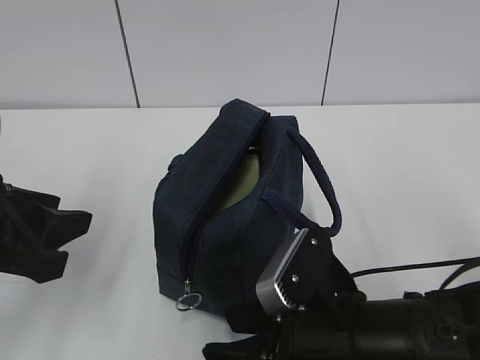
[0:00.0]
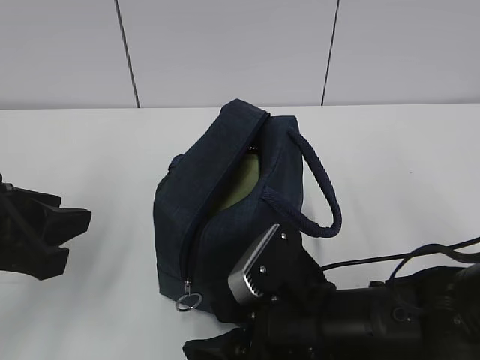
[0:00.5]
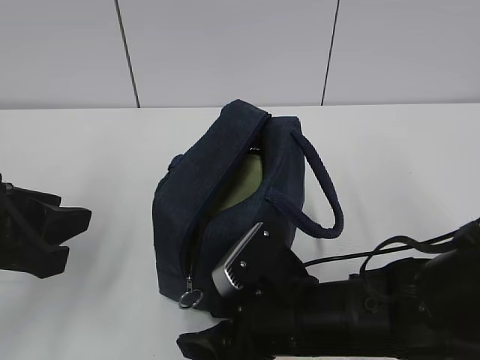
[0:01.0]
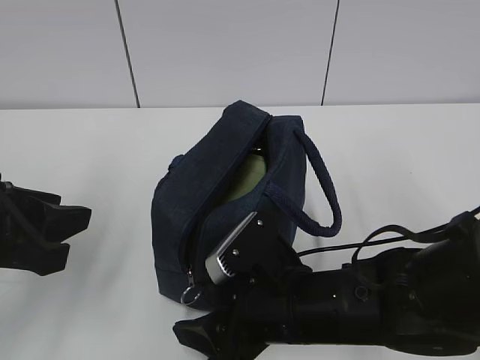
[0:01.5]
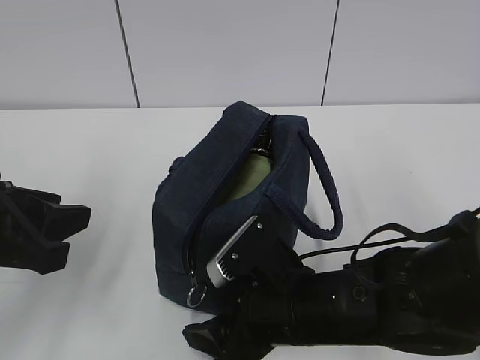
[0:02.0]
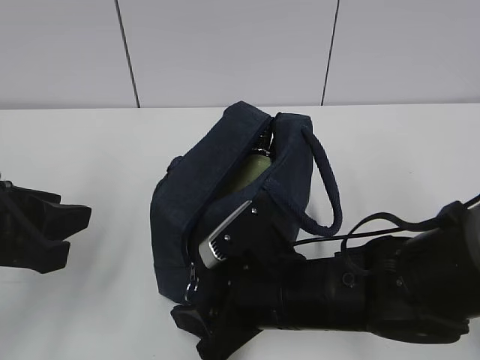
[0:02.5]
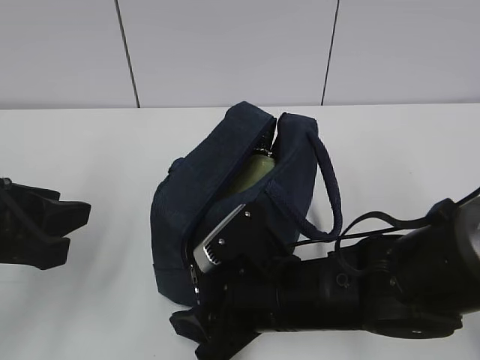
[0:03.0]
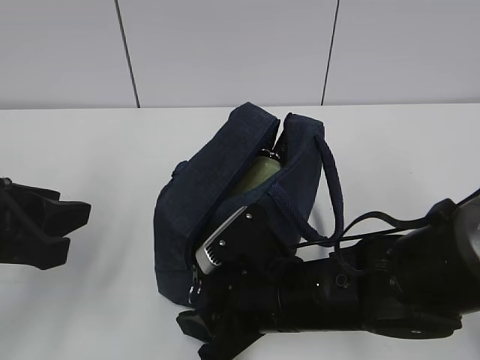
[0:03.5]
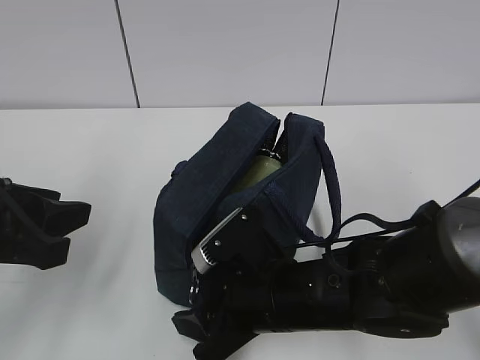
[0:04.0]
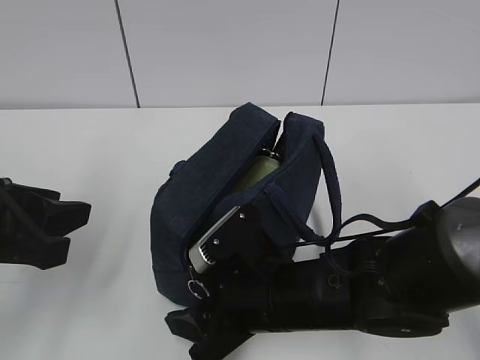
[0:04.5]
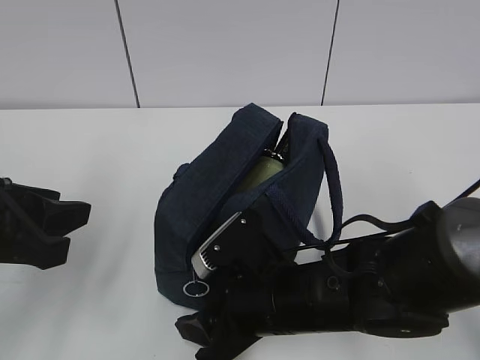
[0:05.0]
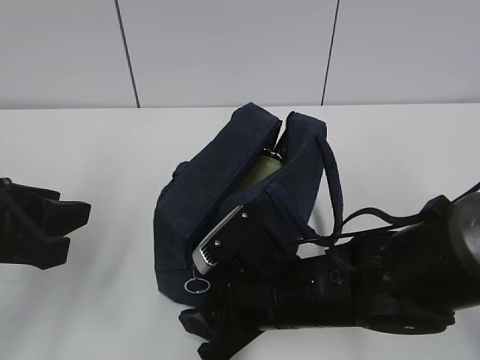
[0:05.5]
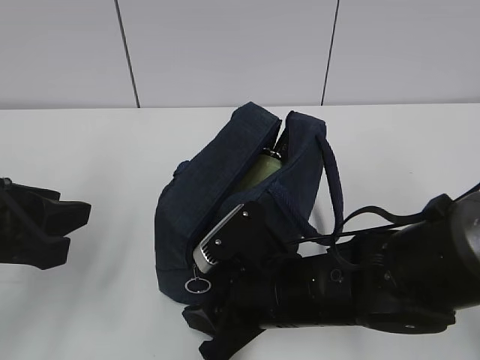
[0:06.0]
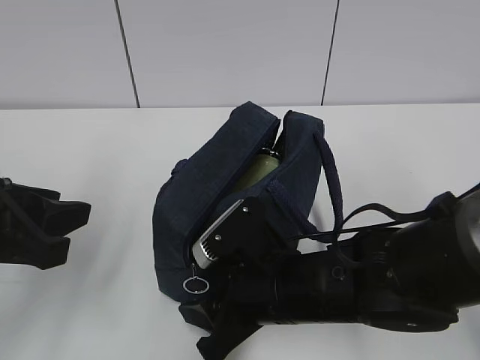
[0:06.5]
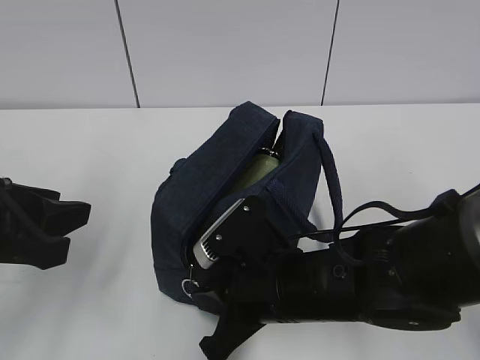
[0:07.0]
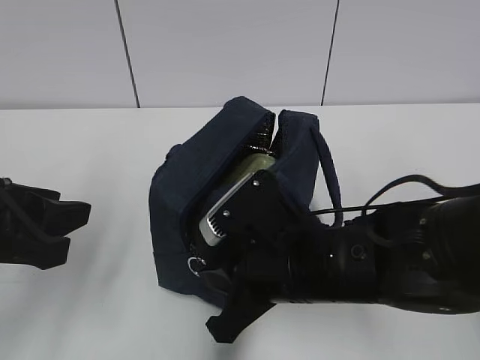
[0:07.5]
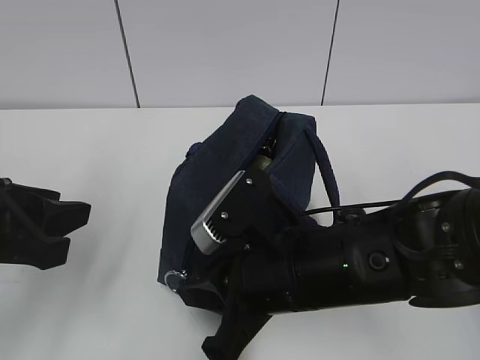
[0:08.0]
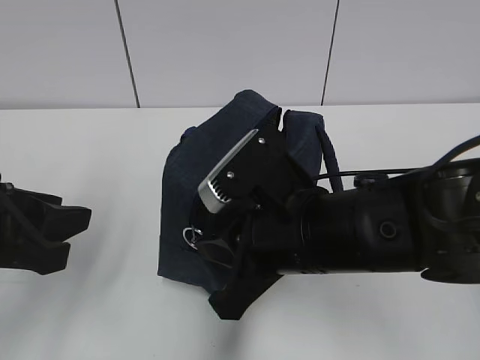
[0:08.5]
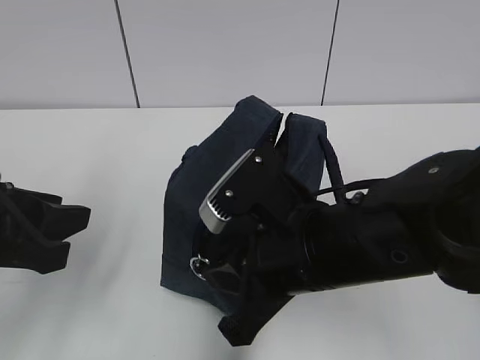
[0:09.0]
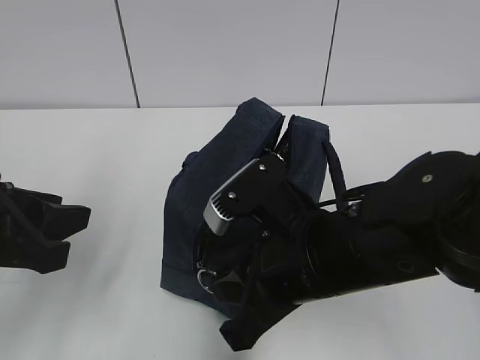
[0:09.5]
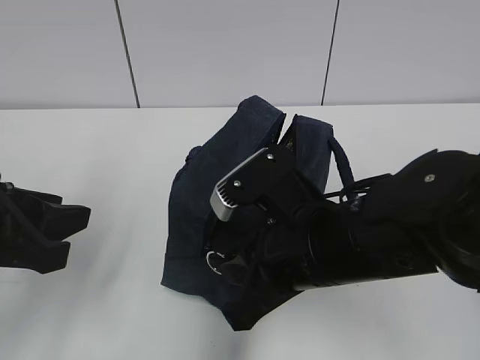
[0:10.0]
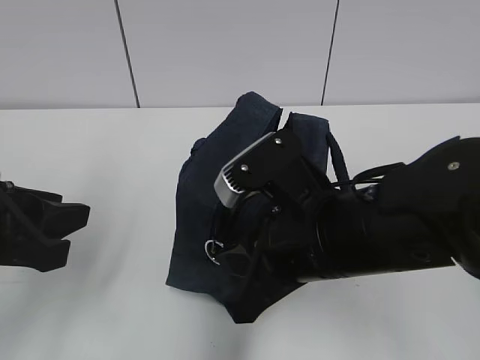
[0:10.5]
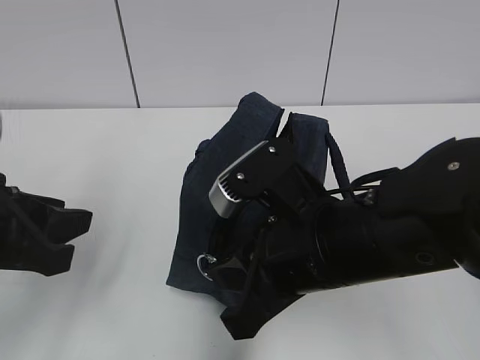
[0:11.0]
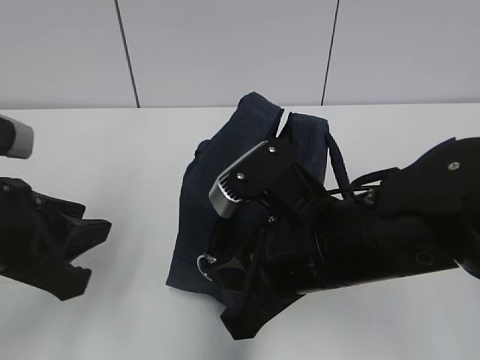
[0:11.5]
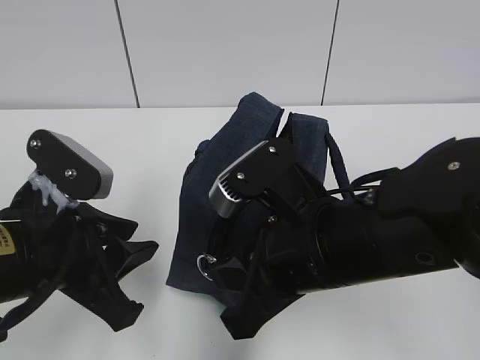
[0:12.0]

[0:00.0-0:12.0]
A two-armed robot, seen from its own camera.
0:00.0 to 0:02.0: The right gripper ends up some 5 cm from where it was.
0:02.0 to 0:04.0: The grippers make only small movements.
0:04.0 to 0:06.0: Both grippers stay about where they are.
0:06.0 to 0:08.0: The right gripper is displaced upward by about 5 cm, and closes its fingers.
0:08.0 to 0:10.0: The grippers stay close to where they were, moving slightly.
0:10.0 to 0:12.0: The left gripper moves to the right, some 5 cm.

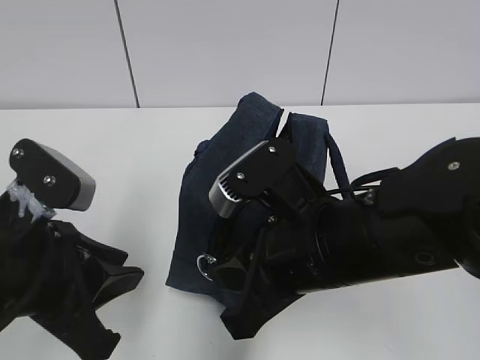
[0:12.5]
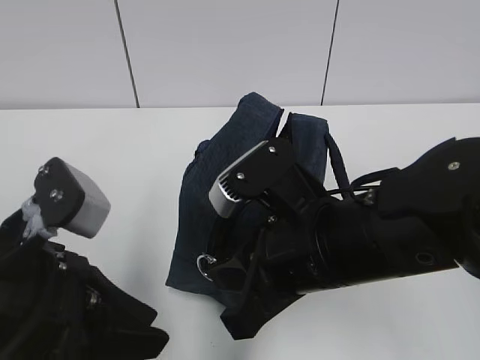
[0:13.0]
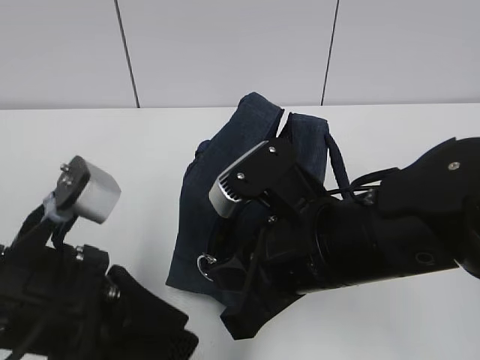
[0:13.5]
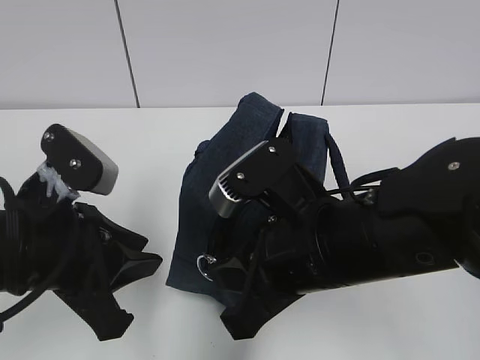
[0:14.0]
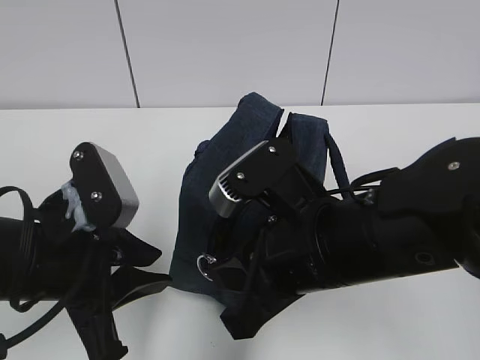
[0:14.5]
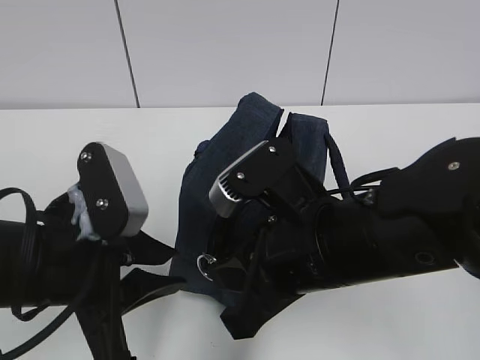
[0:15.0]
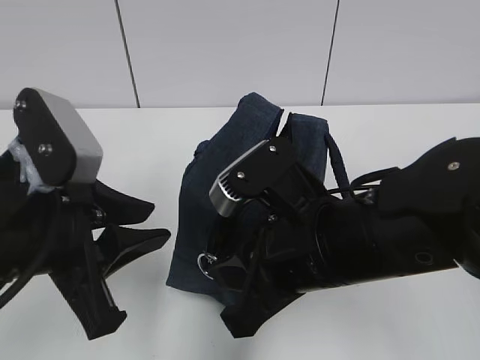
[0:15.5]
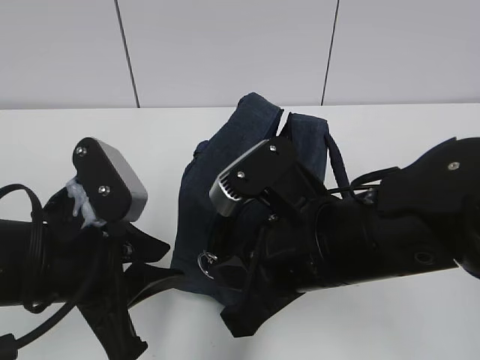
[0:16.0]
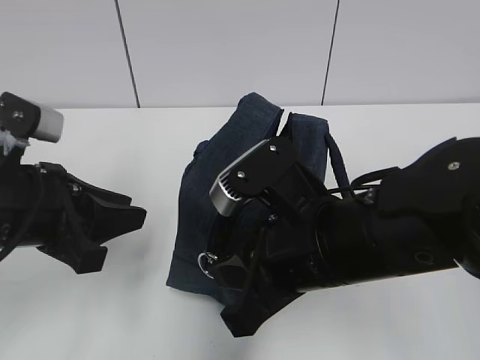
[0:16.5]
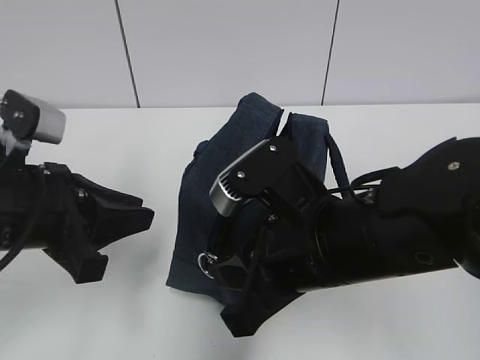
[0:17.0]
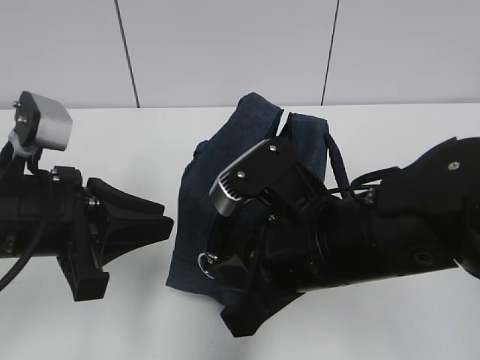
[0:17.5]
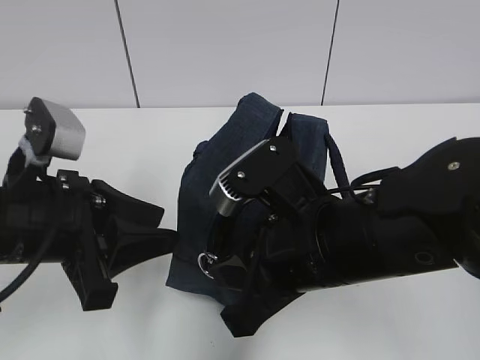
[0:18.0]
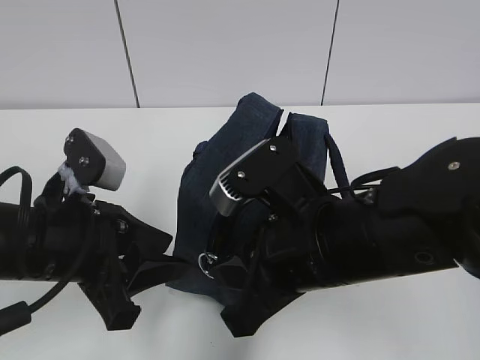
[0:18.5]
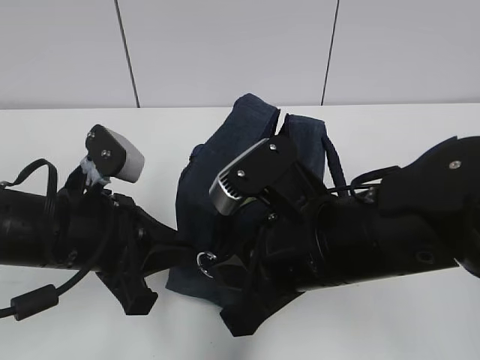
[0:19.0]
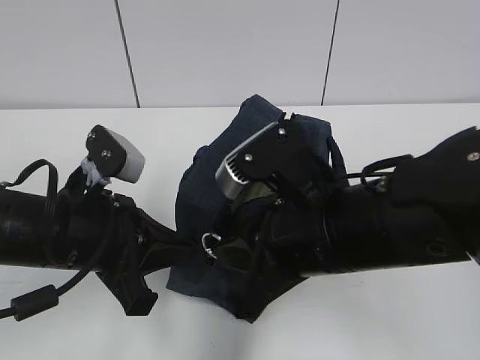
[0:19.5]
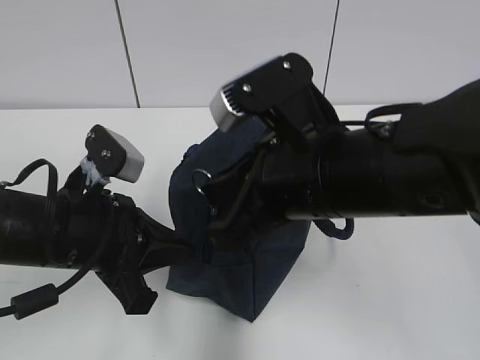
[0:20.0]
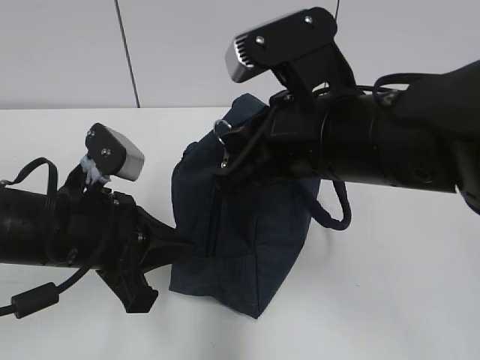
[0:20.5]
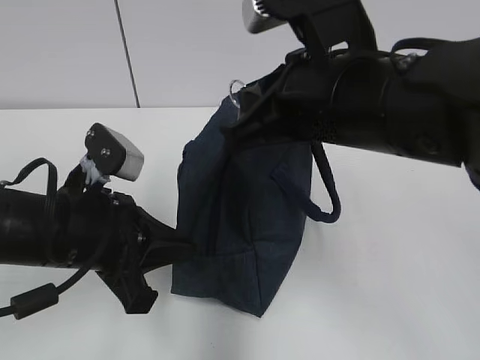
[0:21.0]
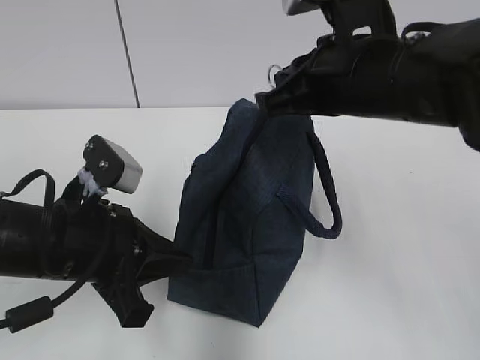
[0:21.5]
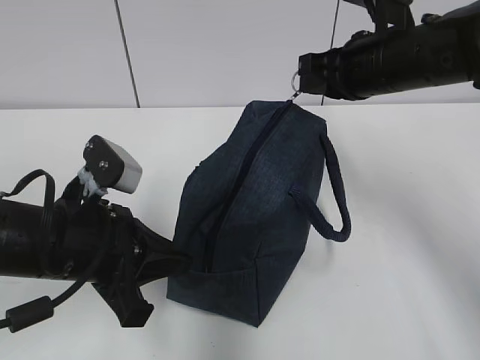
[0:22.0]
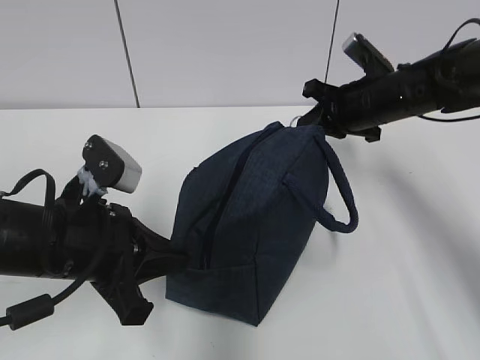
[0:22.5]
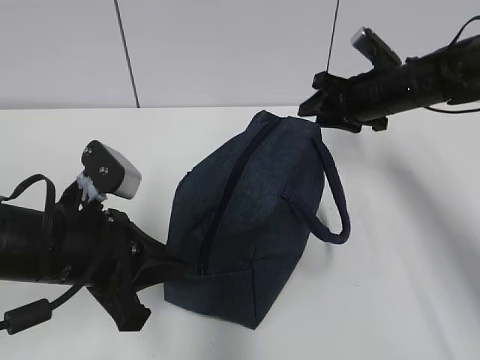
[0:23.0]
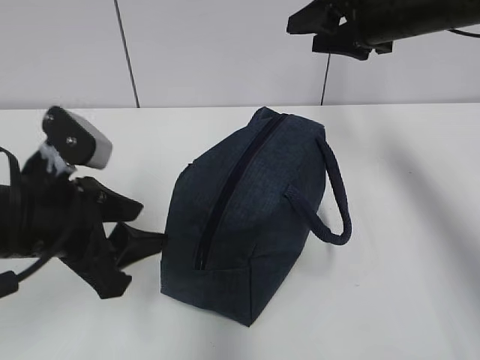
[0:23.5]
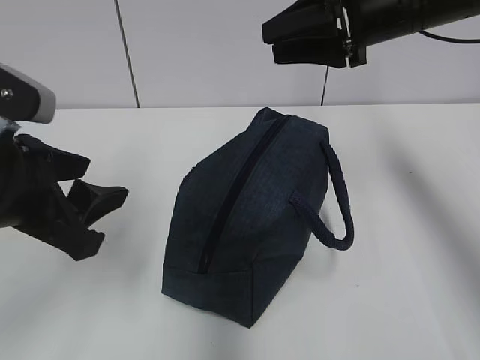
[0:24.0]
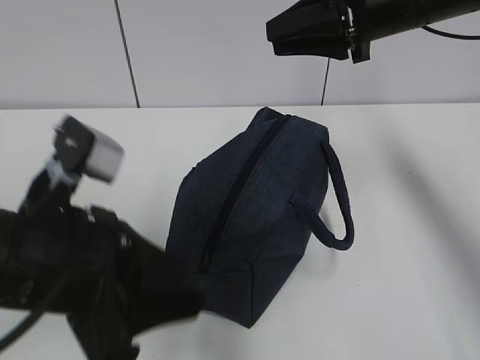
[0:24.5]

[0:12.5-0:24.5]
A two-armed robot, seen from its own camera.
Step, 0:12.5 to 0:18.5: Grab the lunch bag with your left hand.
Step, 0:19.0 to 0:22.5: Pull the zipper with your right hand.
0:14.5 to 0:16.5: The left gripper shifts by roughly 5 cm.
0:16.5 to 0:18.5: The grippers make only small movements.
0:18.5 to 0:20.5: The right gripper goes roughly 5 cm upward. Meanwhile the left gripper closes its fingers.
0:20.5 to 0:22.5: The right gripper travels forward, to the right and downward by about 25 cm.
0:22.5 to 0:24.5: The left gripper goes some 5 cm backward, and opens up, while the right gripper goes approximately 15 cm upward, and opens its fingers.

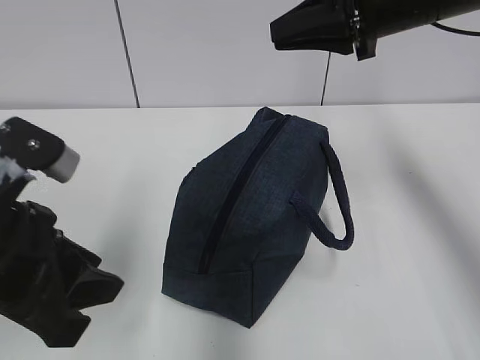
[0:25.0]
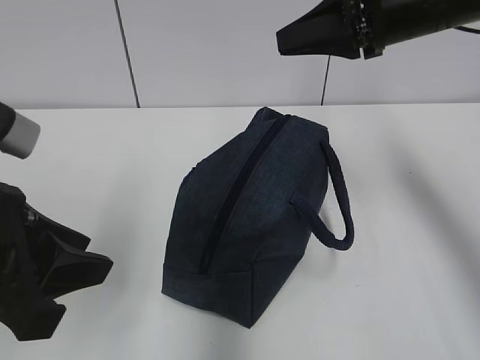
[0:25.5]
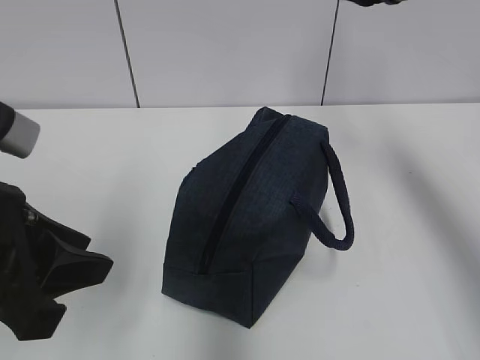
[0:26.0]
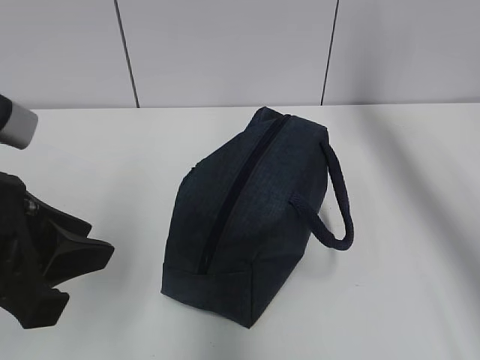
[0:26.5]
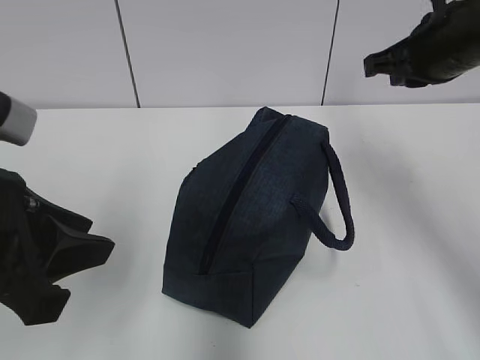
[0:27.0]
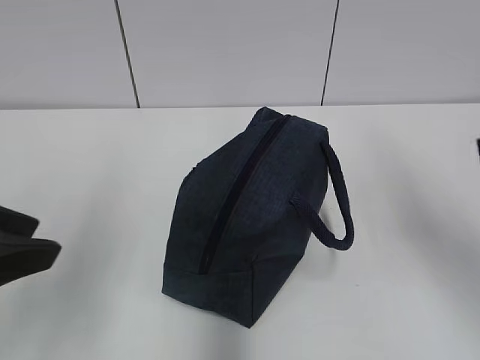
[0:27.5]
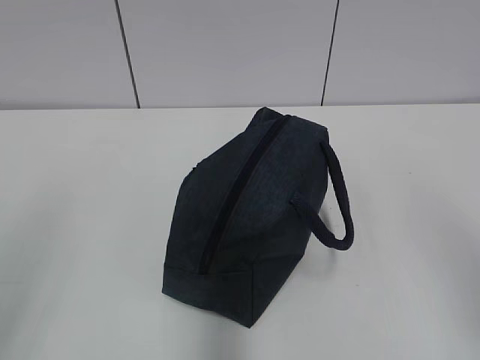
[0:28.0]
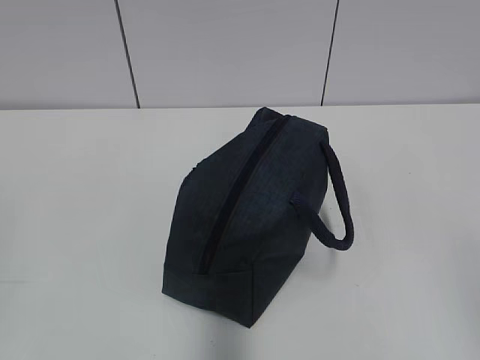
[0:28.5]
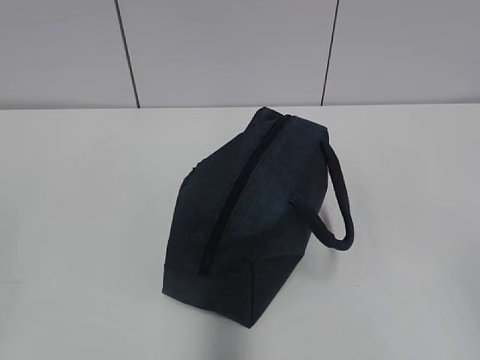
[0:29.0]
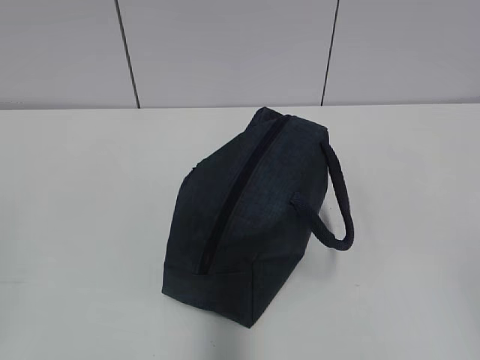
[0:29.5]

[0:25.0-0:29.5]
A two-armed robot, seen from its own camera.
0:27.0 to 0:29.5: The left gripper moves backward and to the left, about 20 cm. Meanwhile the right gripper goes about 35 cm backward.
